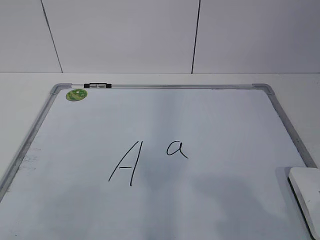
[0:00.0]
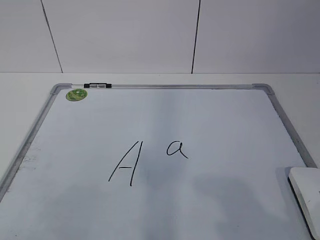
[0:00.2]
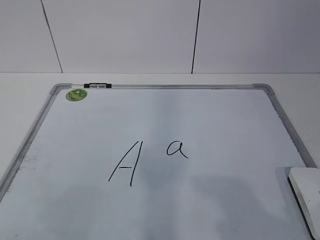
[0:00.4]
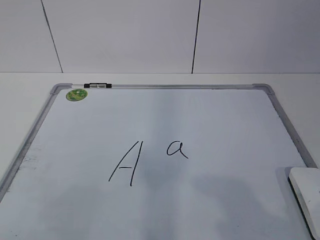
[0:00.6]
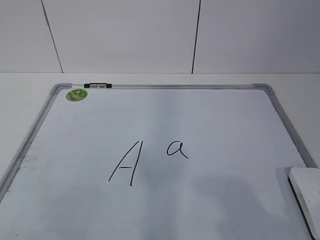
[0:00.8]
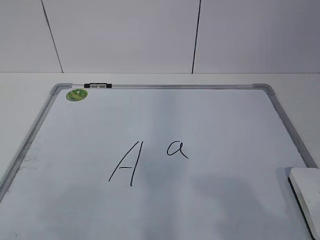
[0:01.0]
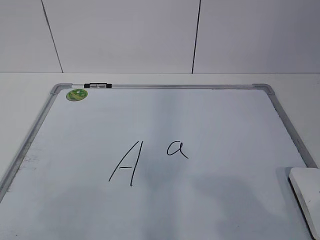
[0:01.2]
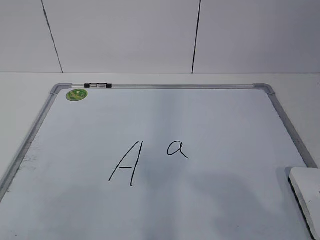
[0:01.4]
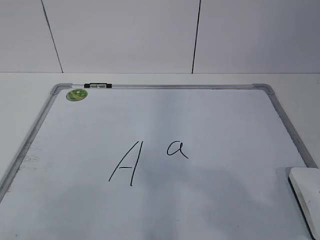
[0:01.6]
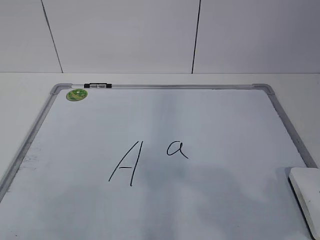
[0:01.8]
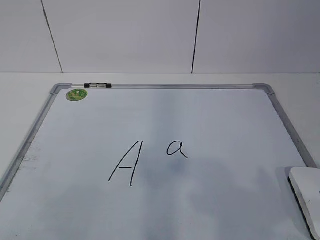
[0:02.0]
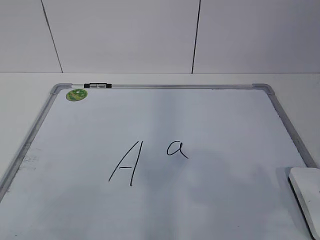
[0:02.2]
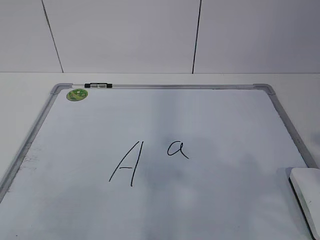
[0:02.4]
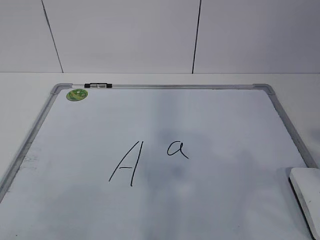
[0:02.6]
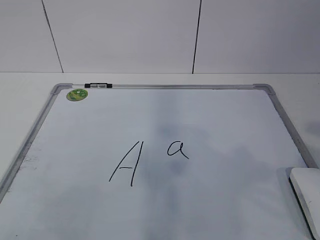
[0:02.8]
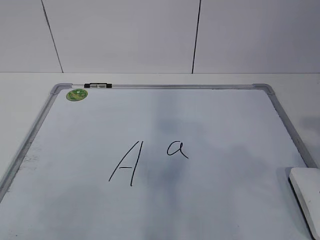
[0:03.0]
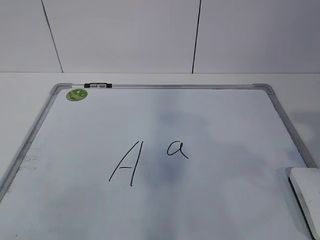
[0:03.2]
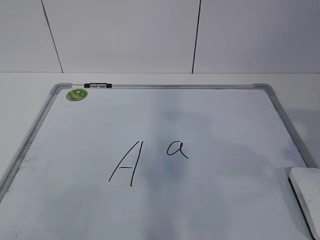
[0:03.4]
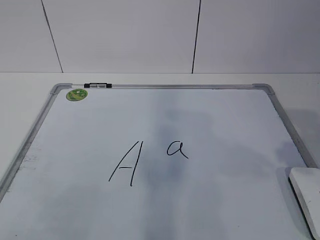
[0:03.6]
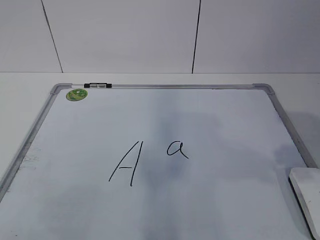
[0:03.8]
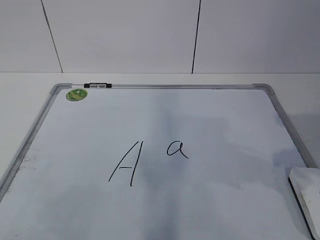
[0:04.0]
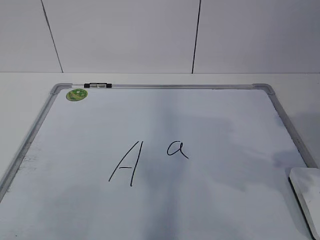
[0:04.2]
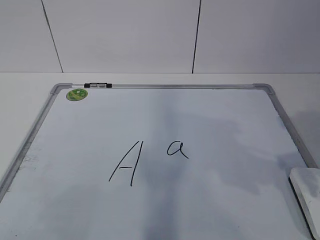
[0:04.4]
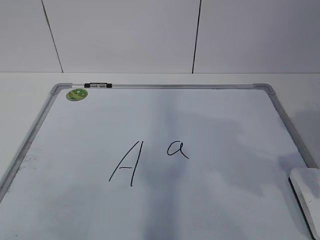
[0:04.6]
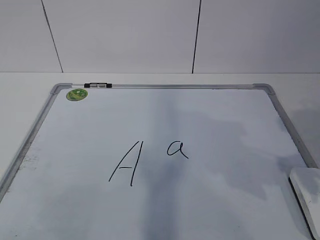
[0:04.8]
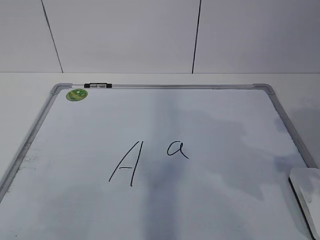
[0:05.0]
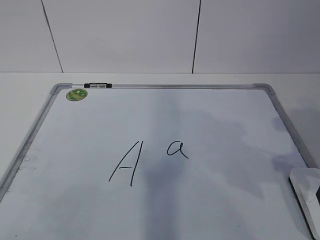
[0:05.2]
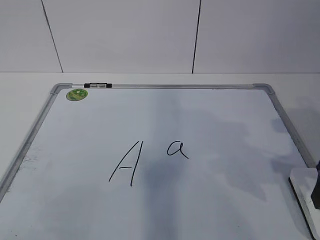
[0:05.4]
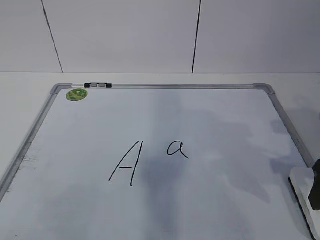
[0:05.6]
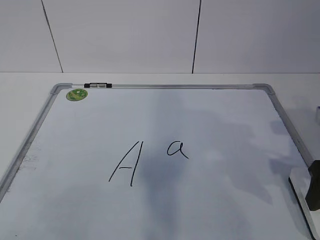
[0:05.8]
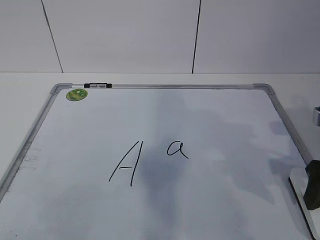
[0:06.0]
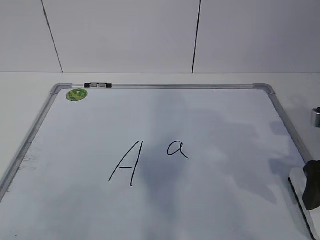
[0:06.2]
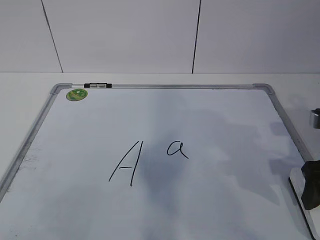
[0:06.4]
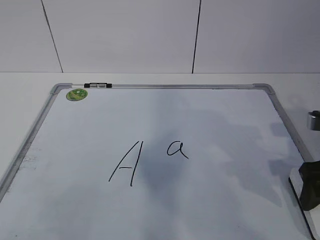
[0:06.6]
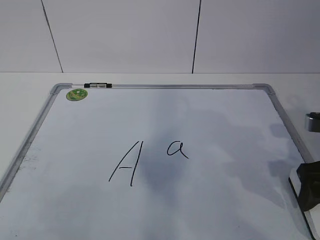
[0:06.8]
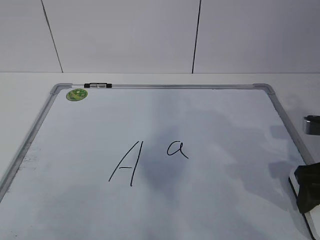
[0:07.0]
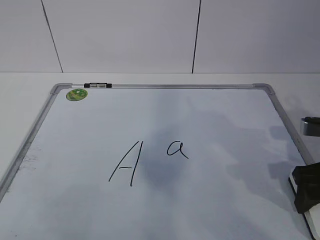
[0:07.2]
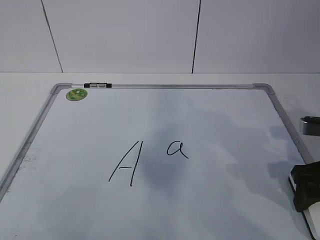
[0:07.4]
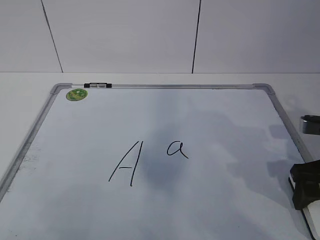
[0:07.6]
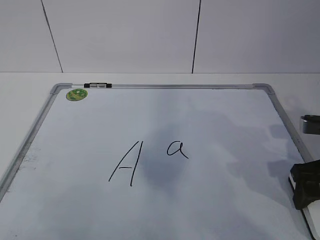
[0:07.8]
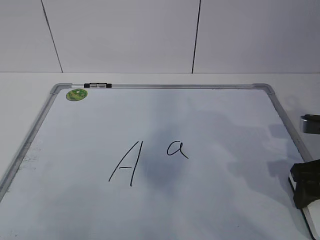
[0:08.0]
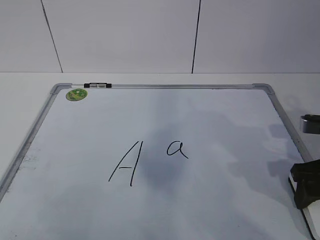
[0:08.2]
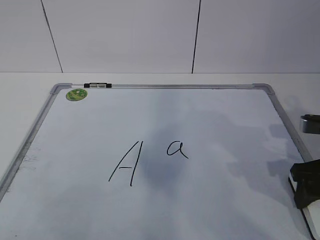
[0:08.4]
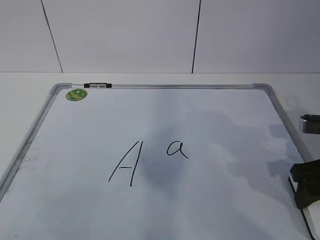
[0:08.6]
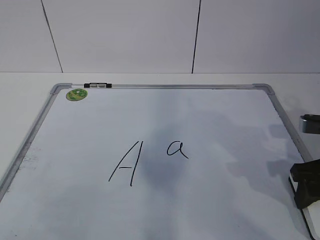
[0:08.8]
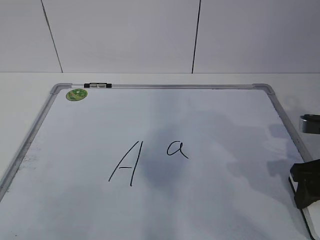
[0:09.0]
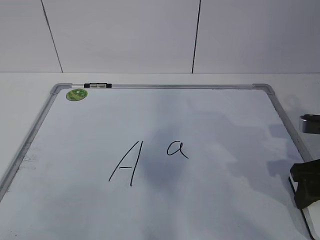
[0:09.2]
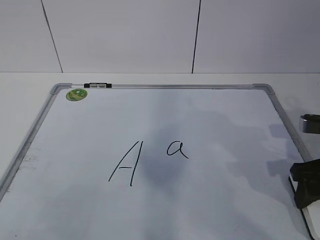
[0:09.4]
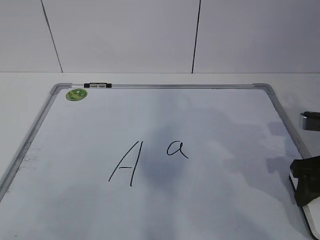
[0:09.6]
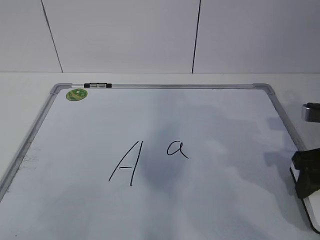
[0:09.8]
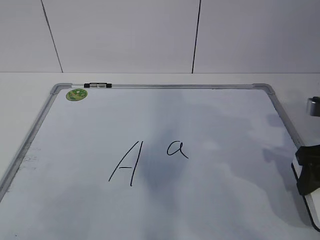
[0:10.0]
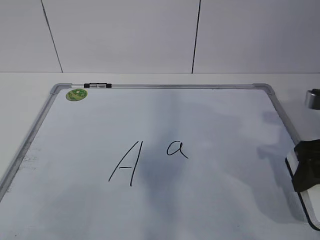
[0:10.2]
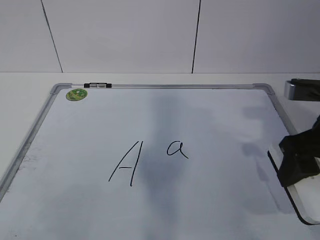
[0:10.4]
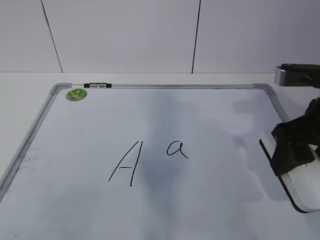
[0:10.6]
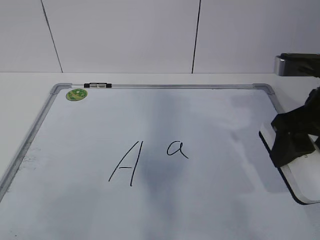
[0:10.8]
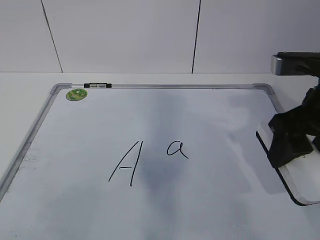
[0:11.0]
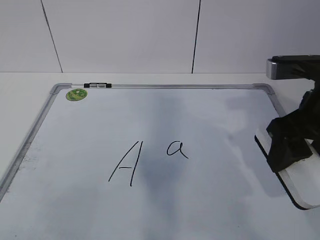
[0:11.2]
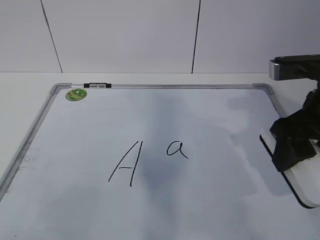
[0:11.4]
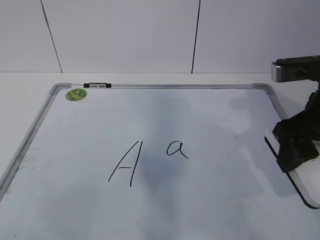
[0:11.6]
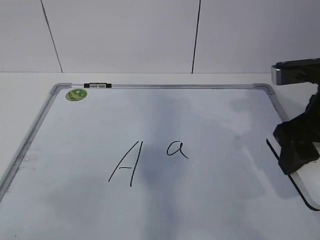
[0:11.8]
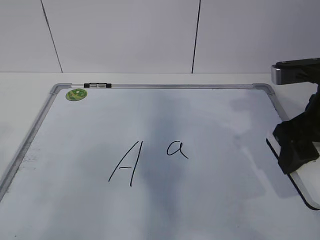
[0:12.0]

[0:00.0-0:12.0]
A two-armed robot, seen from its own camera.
Task of the whole recording: pick up the eraser on the blackboard and erase the letter "a".
0:04.4 to 0:06.0: The right gripper travels downward by some 5 cm, and opens its fingers.
0:06.0 to 0:07.6: The grippers make only small movements.
0:09.0 to 0:10.4: The right gripper moves upward, about 5 cm.

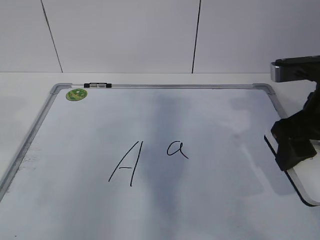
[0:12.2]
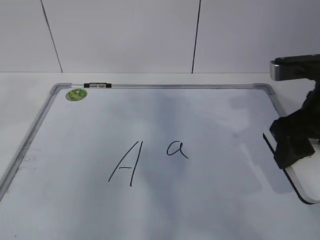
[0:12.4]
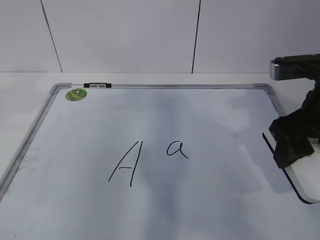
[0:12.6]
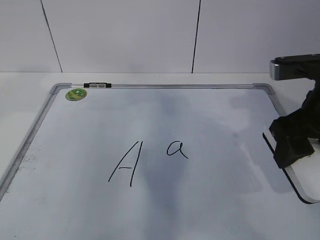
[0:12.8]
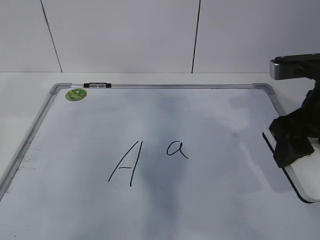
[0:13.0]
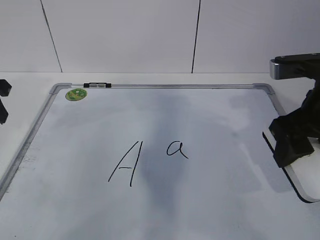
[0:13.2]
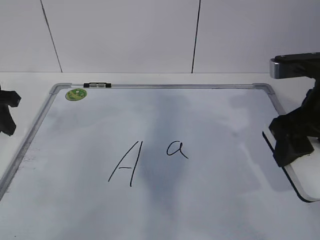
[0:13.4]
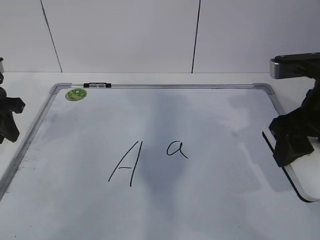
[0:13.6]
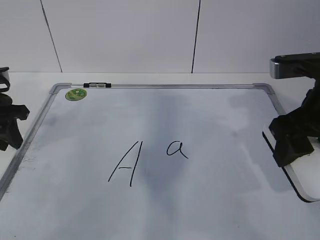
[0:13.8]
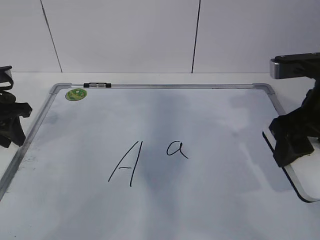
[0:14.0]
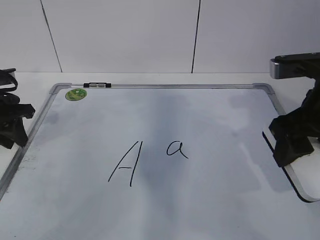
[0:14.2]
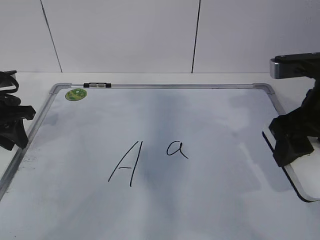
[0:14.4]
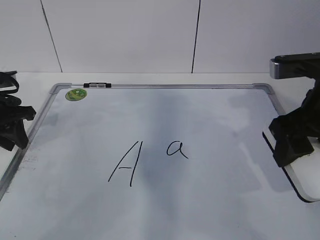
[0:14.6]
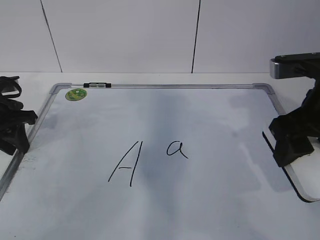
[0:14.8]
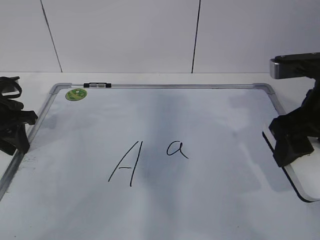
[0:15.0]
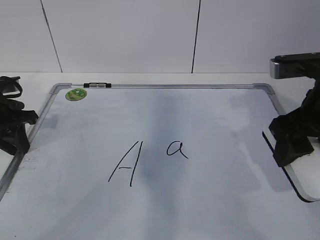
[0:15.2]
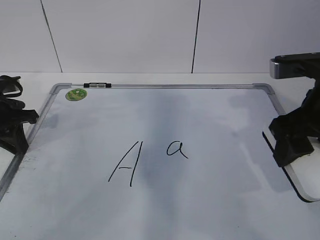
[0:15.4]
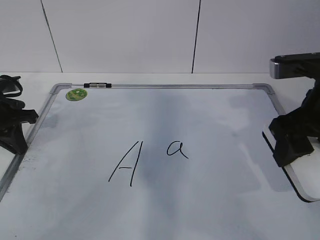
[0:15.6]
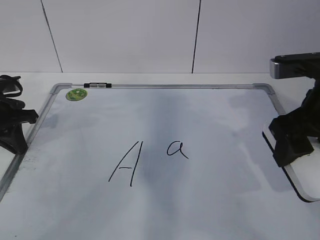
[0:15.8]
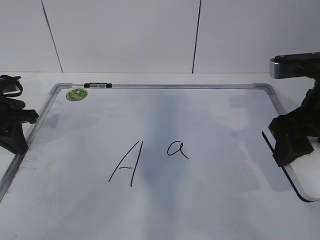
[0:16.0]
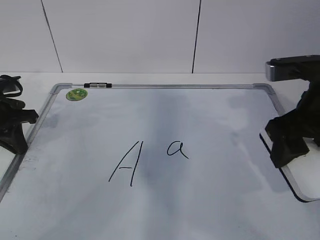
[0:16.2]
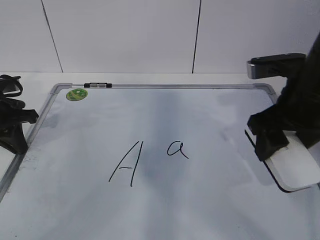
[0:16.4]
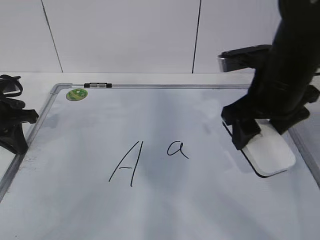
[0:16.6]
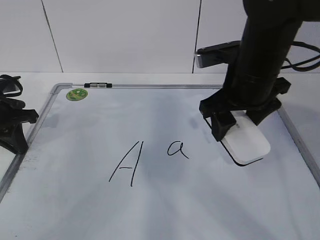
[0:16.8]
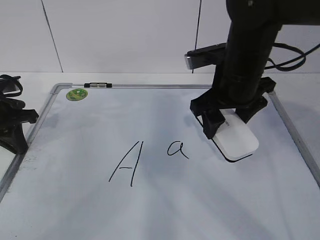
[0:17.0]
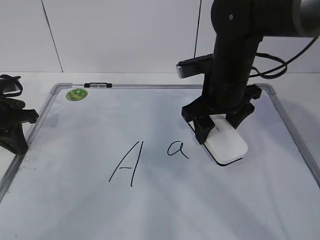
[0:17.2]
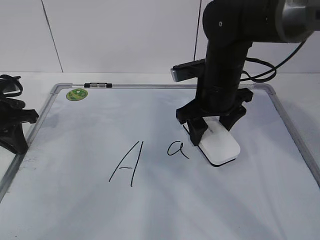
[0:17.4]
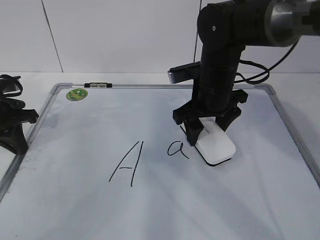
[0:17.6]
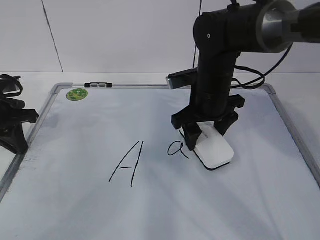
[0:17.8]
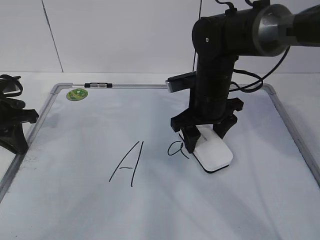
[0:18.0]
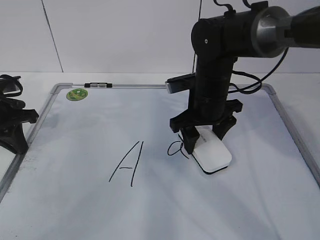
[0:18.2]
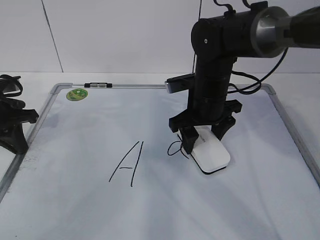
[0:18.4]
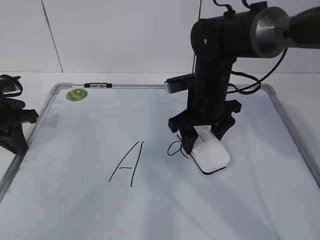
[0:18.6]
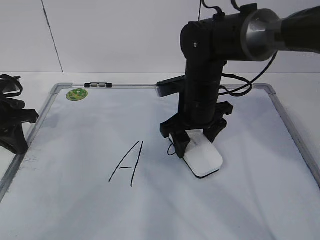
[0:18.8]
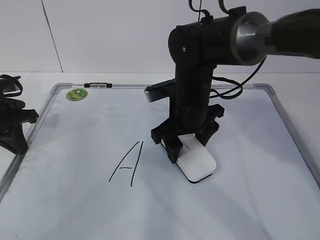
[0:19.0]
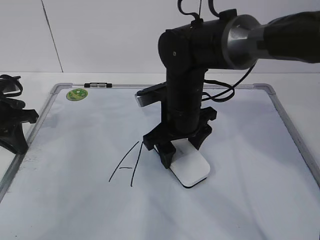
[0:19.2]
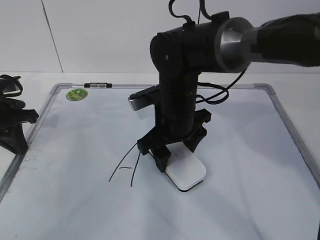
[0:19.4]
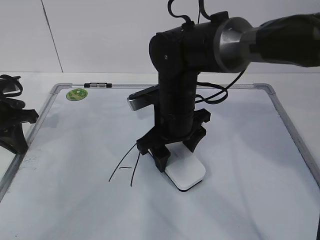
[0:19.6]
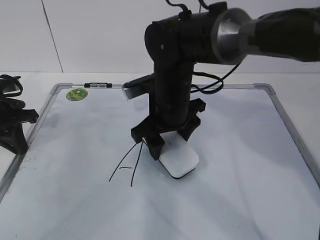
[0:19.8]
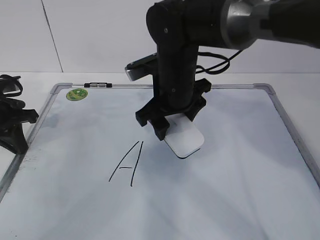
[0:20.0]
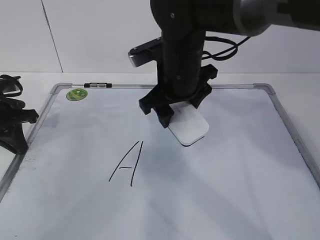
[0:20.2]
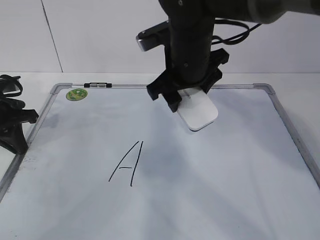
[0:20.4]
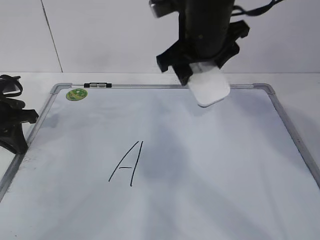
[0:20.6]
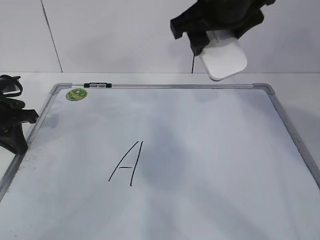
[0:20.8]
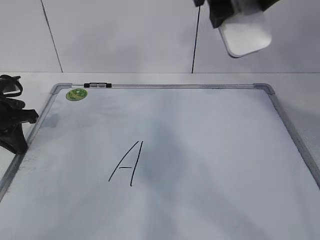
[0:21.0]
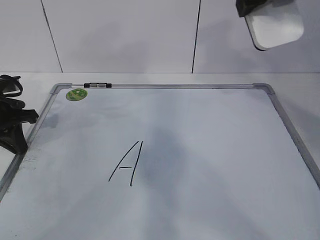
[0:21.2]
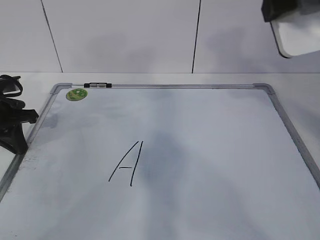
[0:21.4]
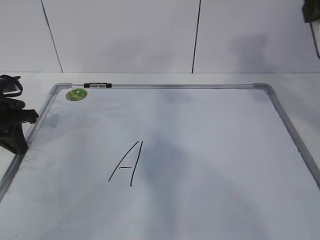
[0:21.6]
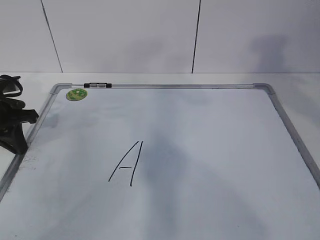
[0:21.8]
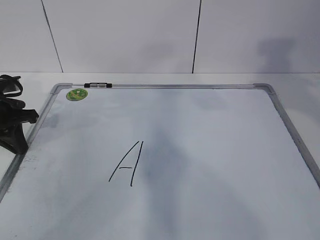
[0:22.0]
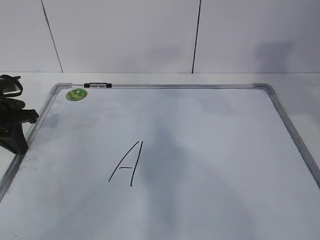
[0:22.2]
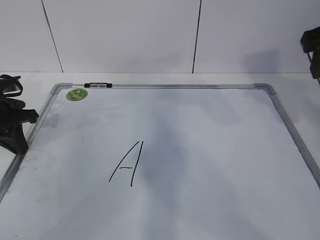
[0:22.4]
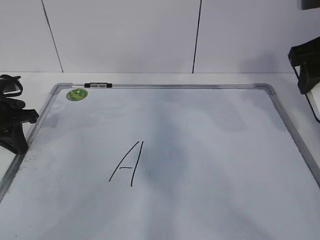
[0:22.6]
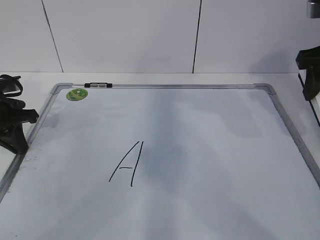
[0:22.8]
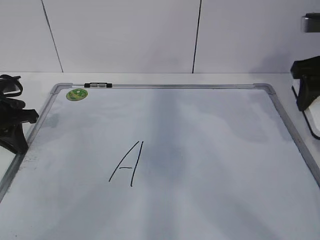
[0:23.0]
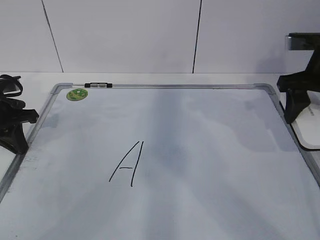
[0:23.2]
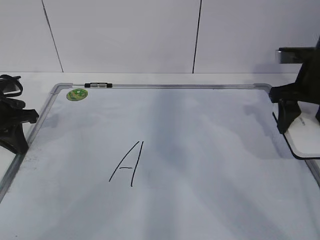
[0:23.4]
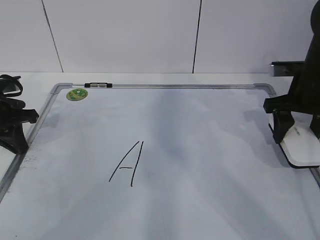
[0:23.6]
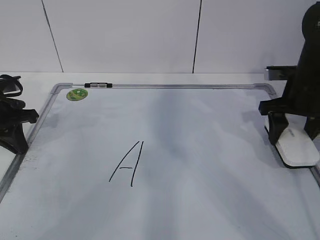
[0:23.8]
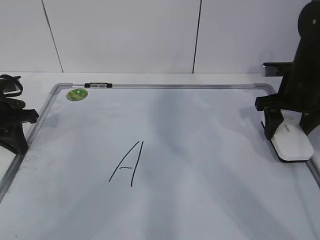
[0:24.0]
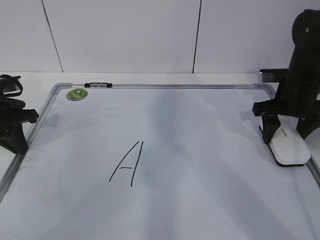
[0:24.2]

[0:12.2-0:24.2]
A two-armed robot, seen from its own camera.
Task of the whole recording: pick up the eraser on the blackboard and erase the letter "a".
Step, 0:16.4 to 0:21.2: Put down the eraser with your right hand.
0:12.2 to 0:13.8: The left gripper travels forward and downward by approximately 30 cm.
0:13.8 to 0:15.2: The grippers stay close to where they were, moving slightly.
0:15.2 to 0:16.6: The right gripper shifts about 10 cm to the left and forward. Meanwhile the left gripper closes up.
0:16.6 to 0:18.2: The right gripper heads downward, forward and to the left, covering some 15 cm.
0:18.2 to 0:19.8: The right gripper goes about 5 cm to the left.
0:19.8 to 0:21.2: The right gripper shifts roughly 25 cm upward and to the right.
0:21.2 to 0:22.6: The right gripper goes roughly 15 cm to the right and downward.
0:22.6 to 0:24.2: The right gripper travels downward and forward by some 15 cm.
